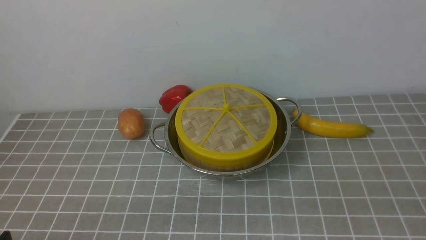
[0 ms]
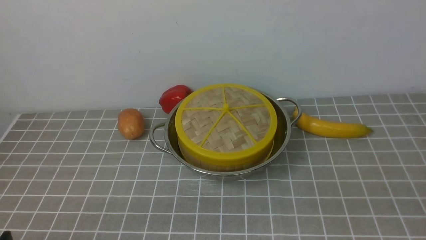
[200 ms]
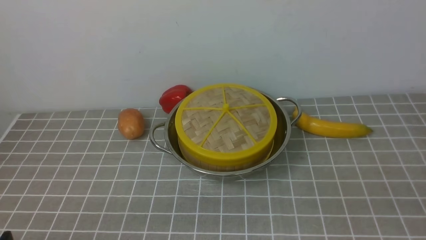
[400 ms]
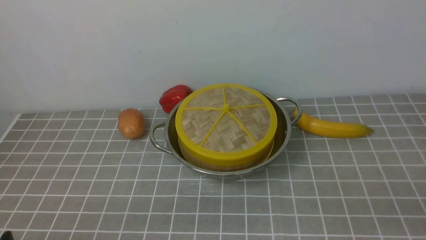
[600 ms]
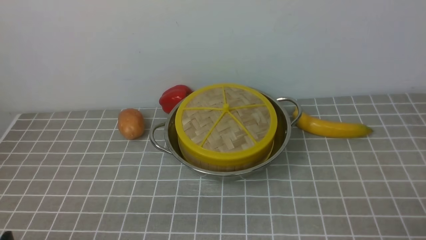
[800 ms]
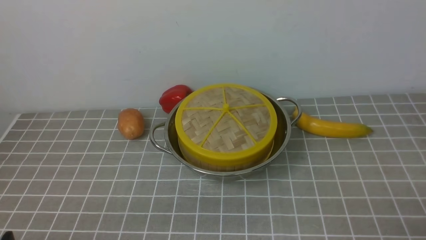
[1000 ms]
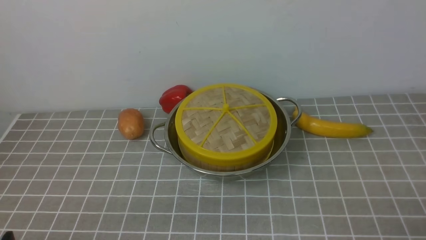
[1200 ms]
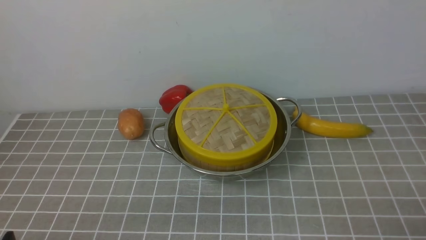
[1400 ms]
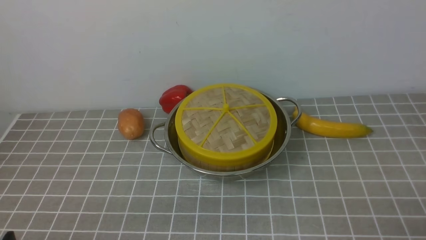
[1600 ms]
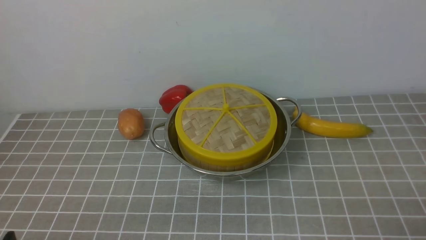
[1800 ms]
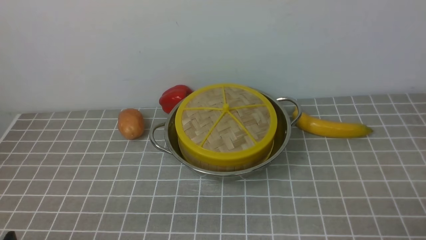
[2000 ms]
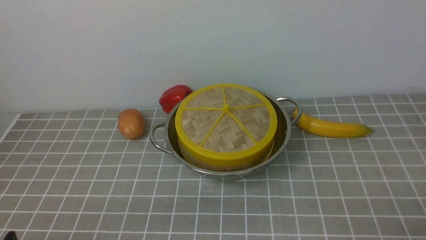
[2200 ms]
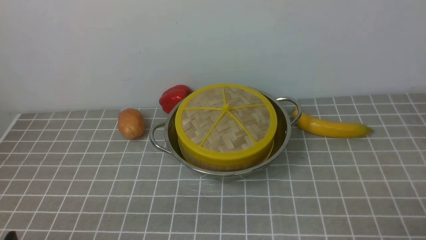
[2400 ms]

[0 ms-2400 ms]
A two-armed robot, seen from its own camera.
Task of the whole recording: place the steamer in the pot on the grey tablecloth, and put the lid on the steamer.
1200 ms to 2400 ms: Neither gripper changes place.
